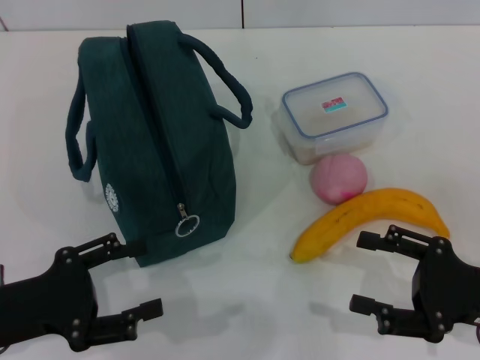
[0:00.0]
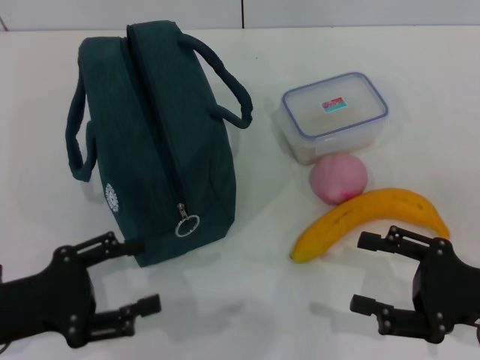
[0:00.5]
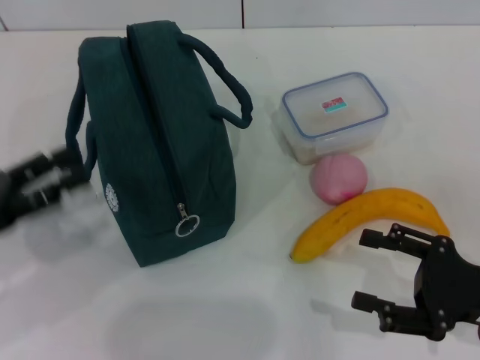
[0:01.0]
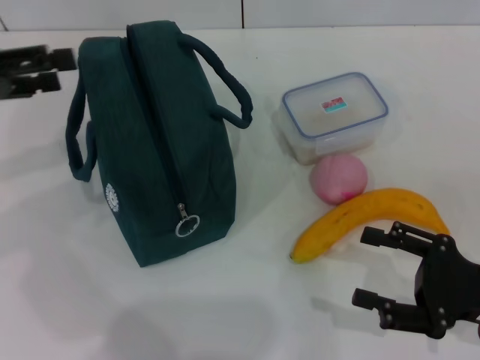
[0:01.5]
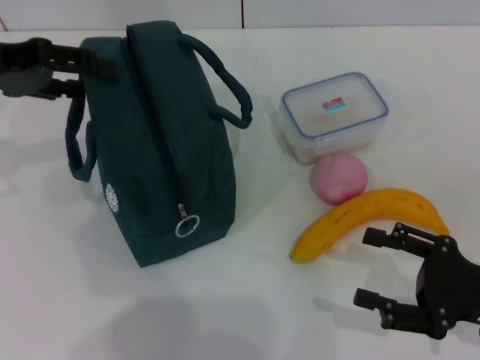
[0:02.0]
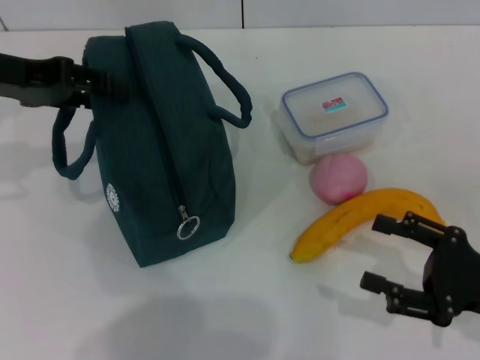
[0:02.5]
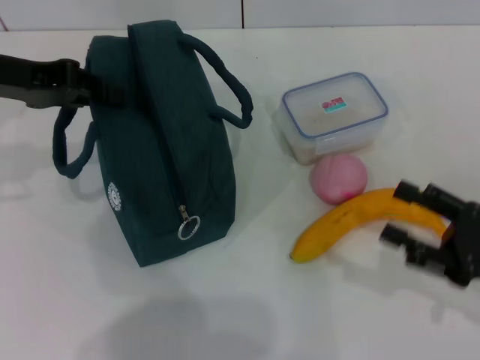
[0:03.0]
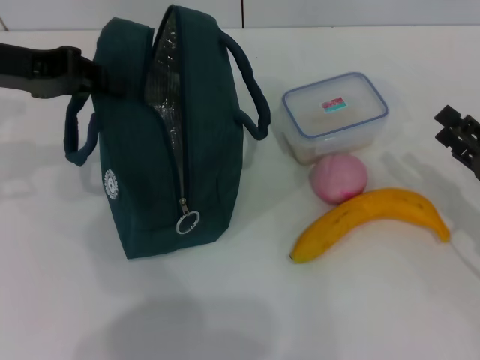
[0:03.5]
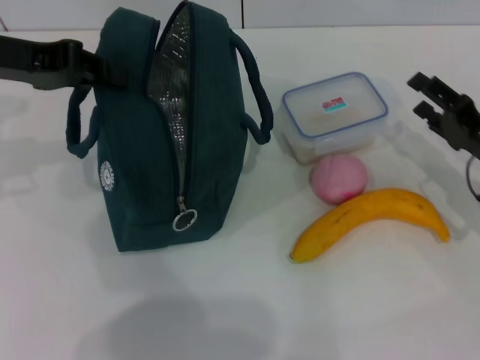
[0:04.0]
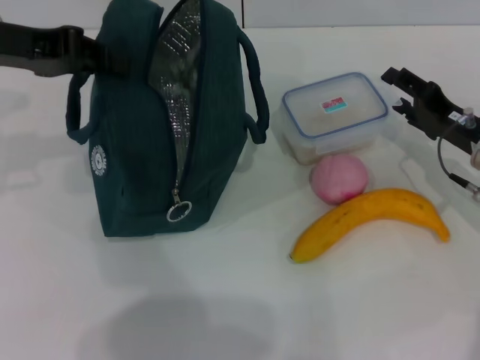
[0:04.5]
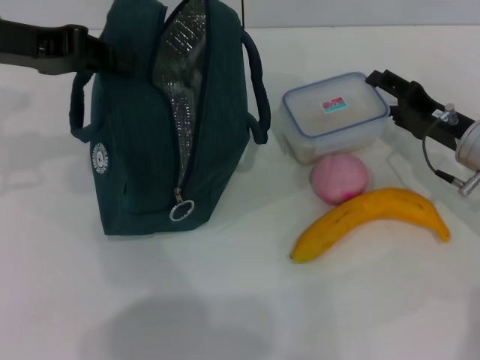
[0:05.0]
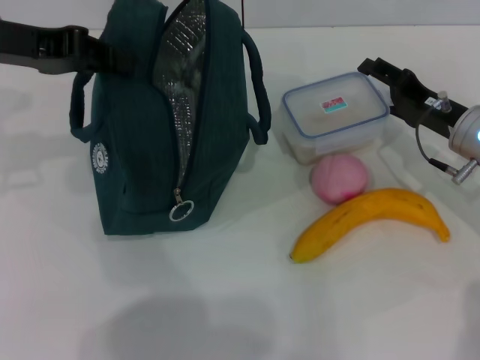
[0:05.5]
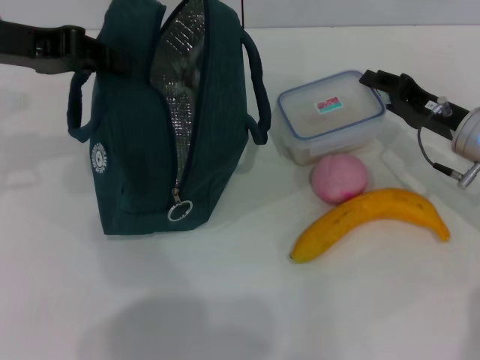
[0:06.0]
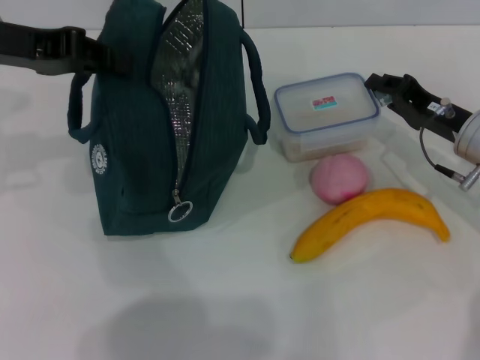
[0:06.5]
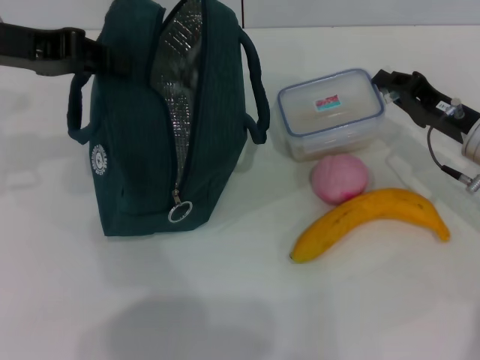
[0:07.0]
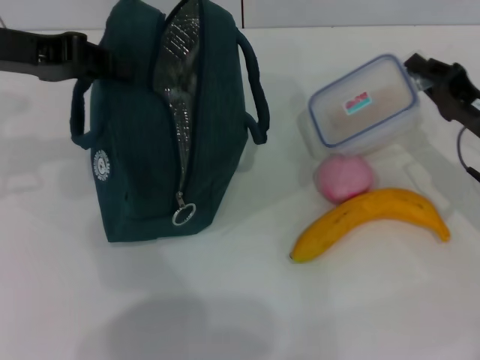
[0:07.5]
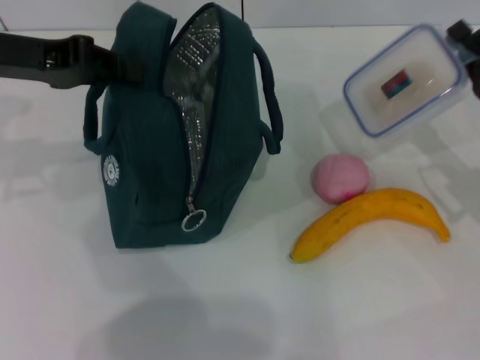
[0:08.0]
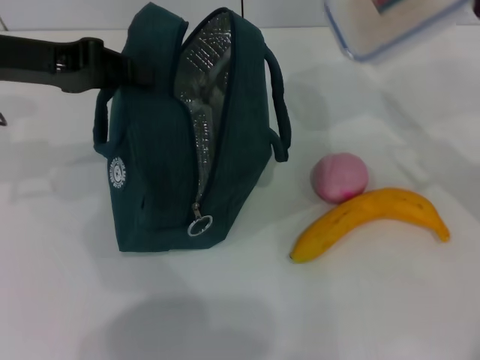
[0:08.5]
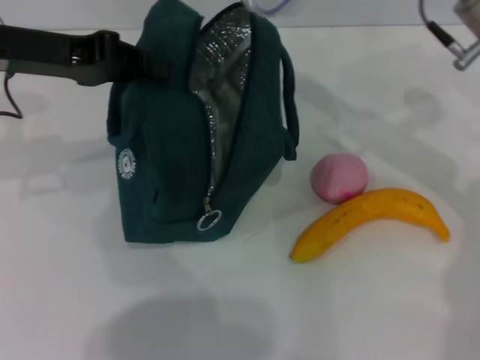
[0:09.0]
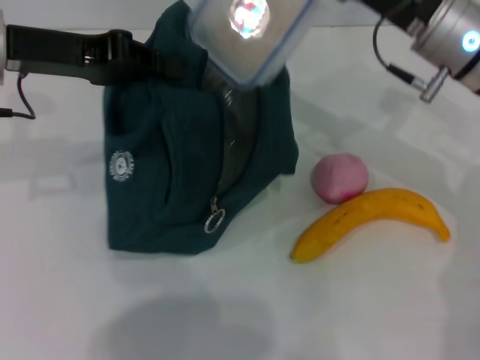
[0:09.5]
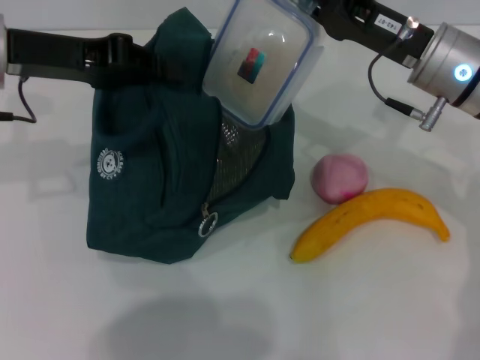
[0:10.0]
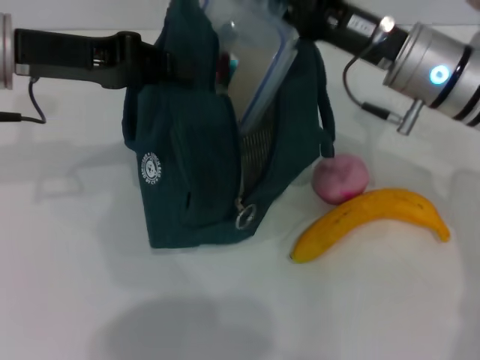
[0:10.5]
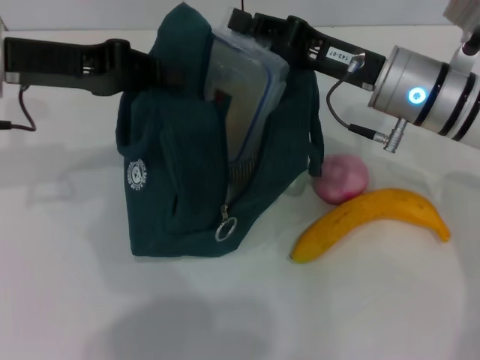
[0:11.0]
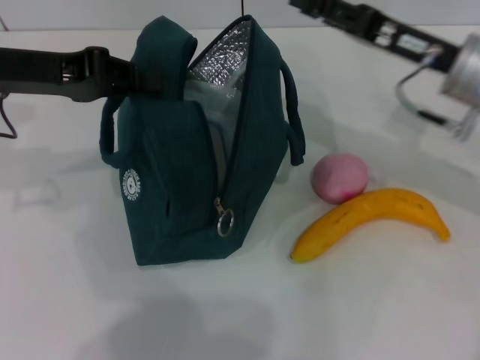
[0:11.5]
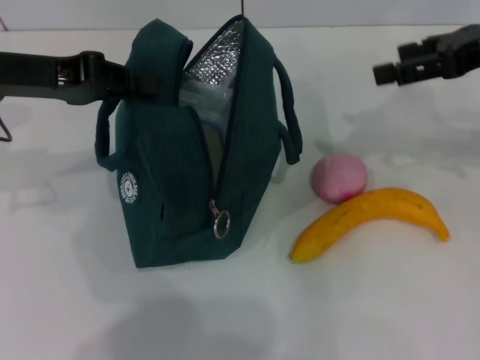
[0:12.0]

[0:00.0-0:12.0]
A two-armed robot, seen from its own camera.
Step, 0:00.0 to 0:03.0: Hold the lunch bag with your left hand.
Step, 0:03.5 to 0:06.5: Pick up the lunch box with your right hand.
Step, 0:07.0 to 0:11.0: Place the lunch box into the lunch bag with your right hand.
0:00.0 to 0:02.0: The left gripper travels forward and upward by some 25 cm.
0:02.0 to 0:04.0: The right gripper heads forward, covering about 10 cm. The left gripper closes its fingers.
0:04.0 to 0:06.0: The right gripper moves forward, about 5 cm.
0:06.0 to 0:08.0: The right gripper heads backward, covering roughly 5 cm, and closes.
0:08.0 to 0:10.0: The right gripper is displaced to the left, upward and forward by roughly 15 cm.
0:10.0 to 0:12.0: The right gripper heads to the right and upward, covering roughly 15 cm, and opens.

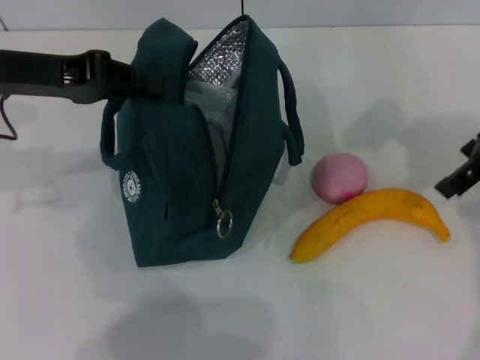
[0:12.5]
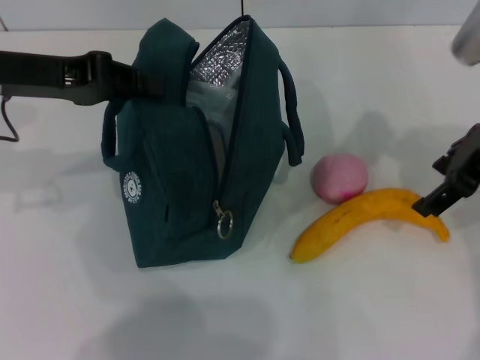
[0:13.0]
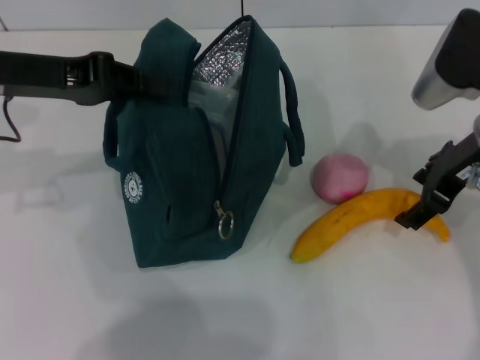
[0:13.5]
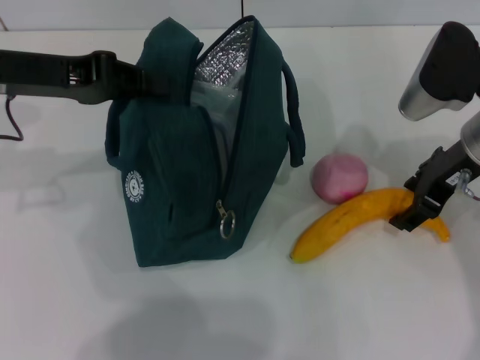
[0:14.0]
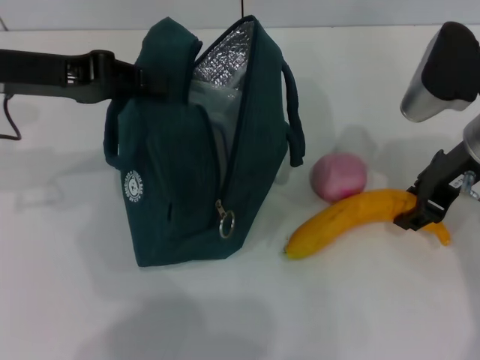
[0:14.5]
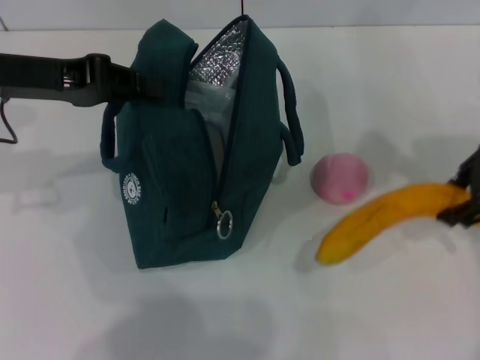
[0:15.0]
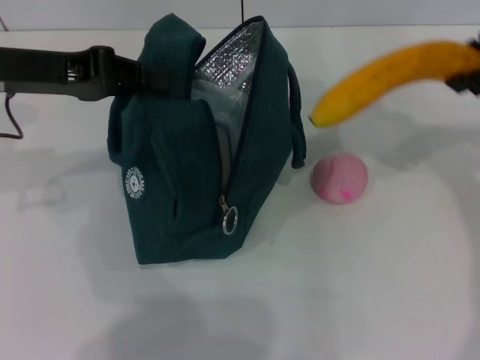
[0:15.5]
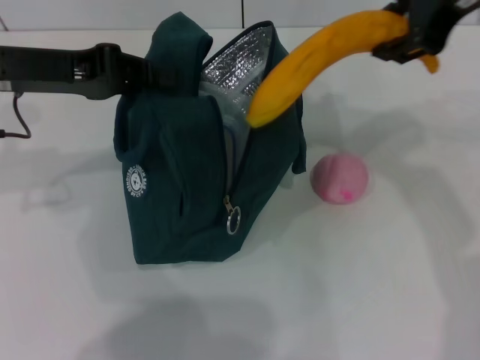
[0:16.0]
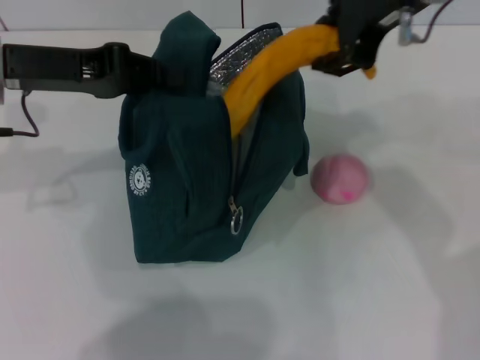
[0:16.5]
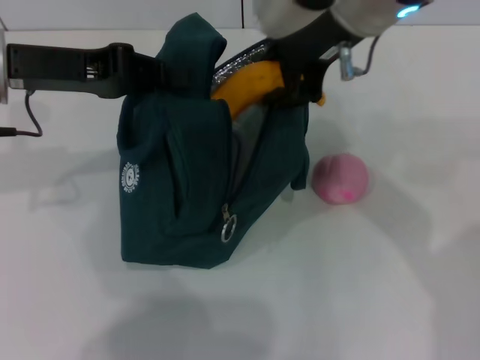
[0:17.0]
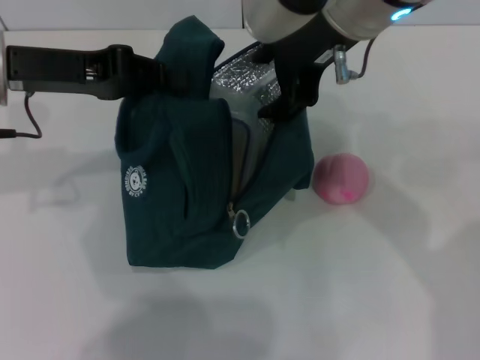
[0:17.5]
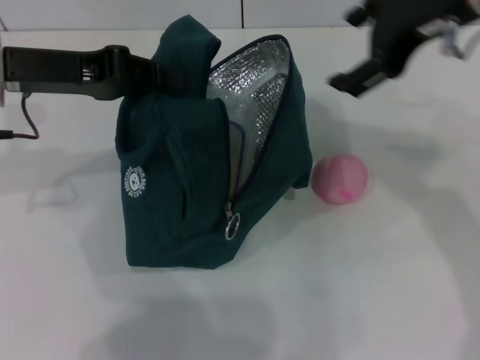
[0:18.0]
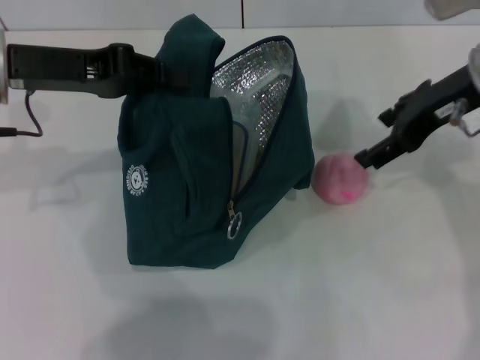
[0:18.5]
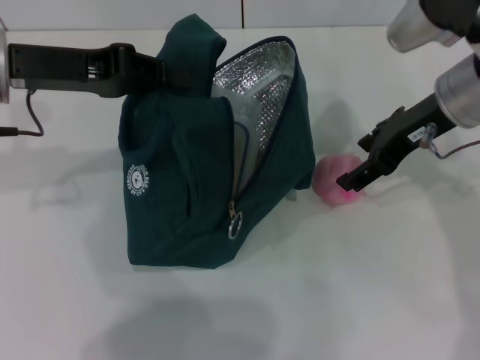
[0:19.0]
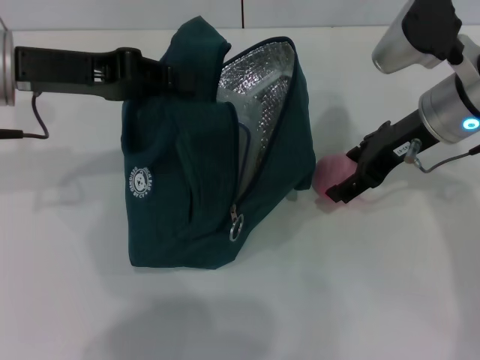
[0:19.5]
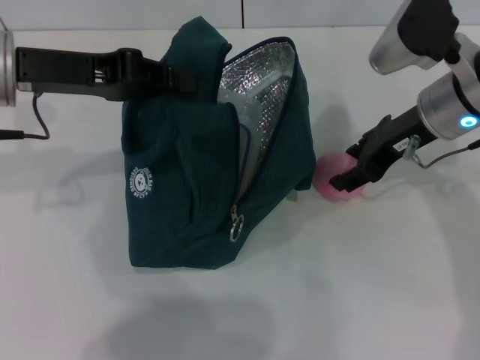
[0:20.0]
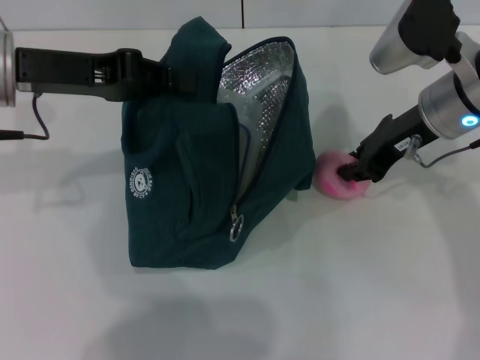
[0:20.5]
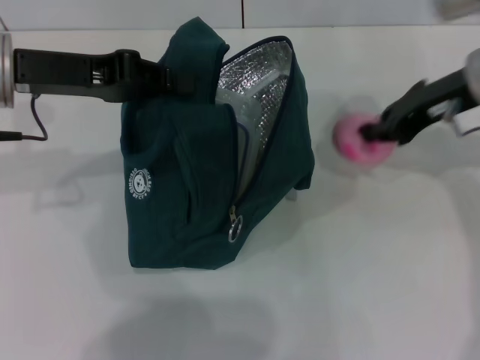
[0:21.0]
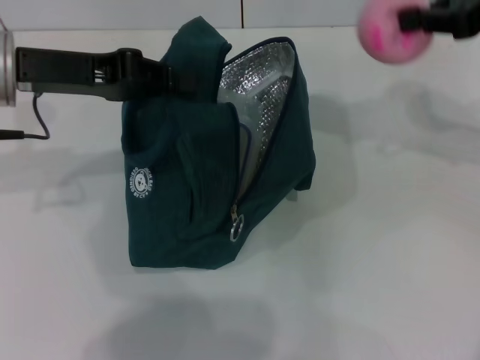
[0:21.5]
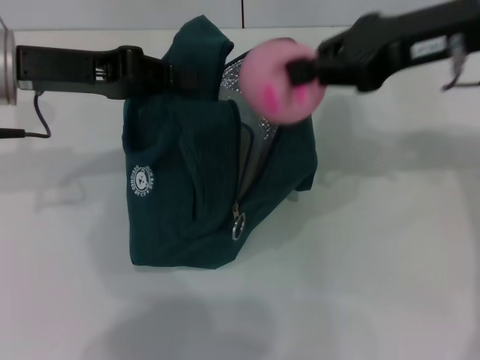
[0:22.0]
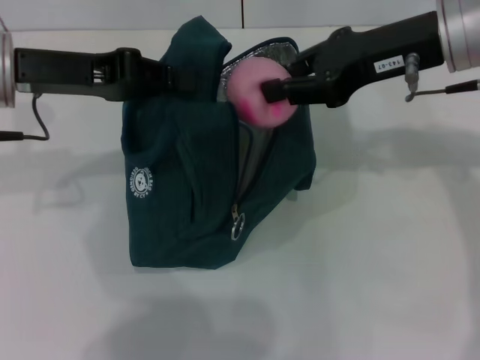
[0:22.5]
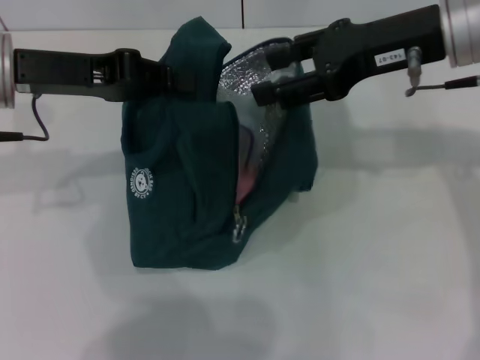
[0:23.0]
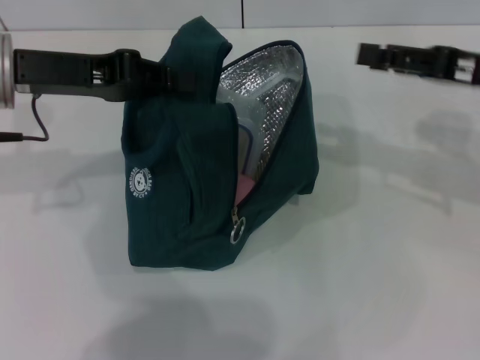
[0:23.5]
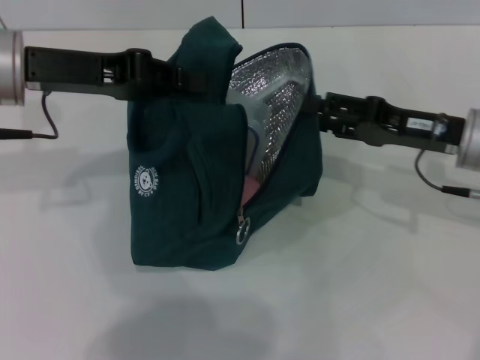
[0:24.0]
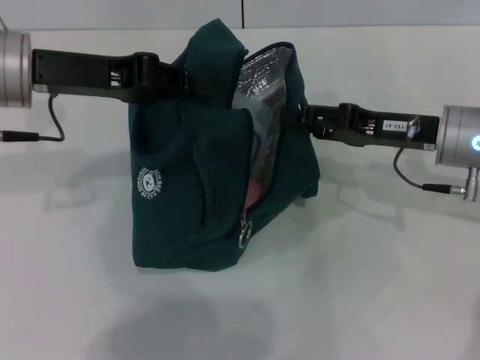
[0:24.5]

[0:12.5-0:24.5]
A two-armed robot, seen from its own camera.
Step, 0:12.5 to 0:14.0: Take the banana with your right hand.
Step, 0:14.5 to 0:17.0: Put the banana into the lunch bag with your right hand.
Step, 0:17.5 to 0:20.5: Grab the peach with your right hand.
0:12.5 to 0:14.5: The right gripper heads downward, covering about 10 cm, and closes up.
0:14.5 to 0:16.5: The right gripper shifts roughly 15 cm upward and to the left.
0:16.5 to 0:18.5: The right gripper heads downward and to the right, covering about 10 cm, and opens up.
0:18.5 to 0:20.5: The right gripper moves downward, approximately 5 cm, and closes its fingers.
0:20.5 to 0:22.5: The right gripper is displaced upward by roughly 10 cm.
0:22.5 to 0:24.5: The right gripper is displaced downward by about 15 cm, and opens up.

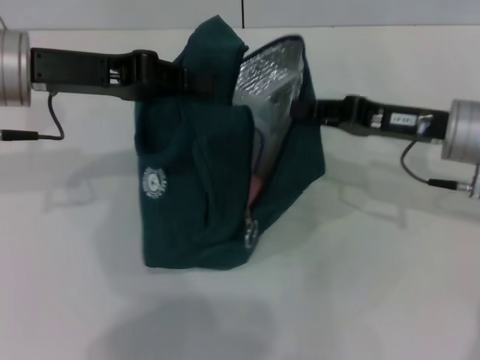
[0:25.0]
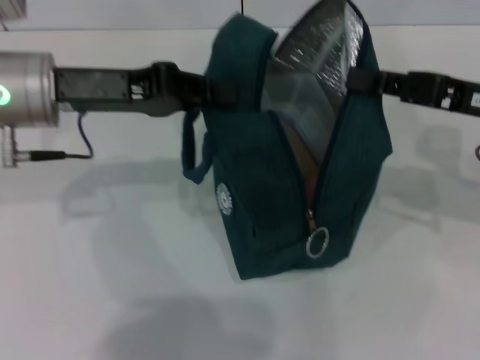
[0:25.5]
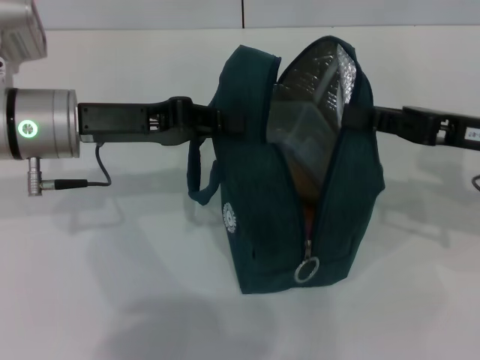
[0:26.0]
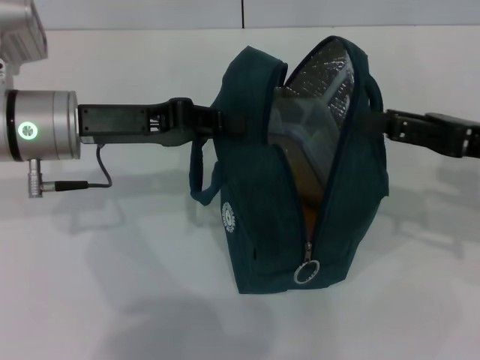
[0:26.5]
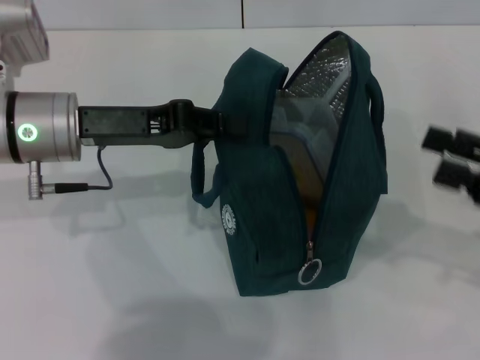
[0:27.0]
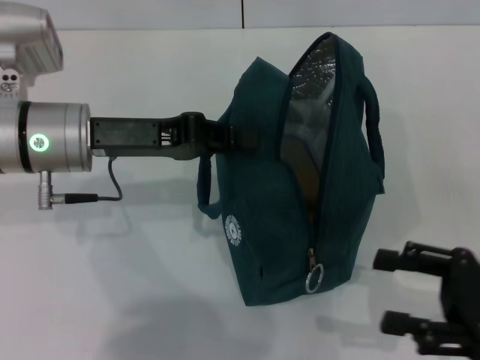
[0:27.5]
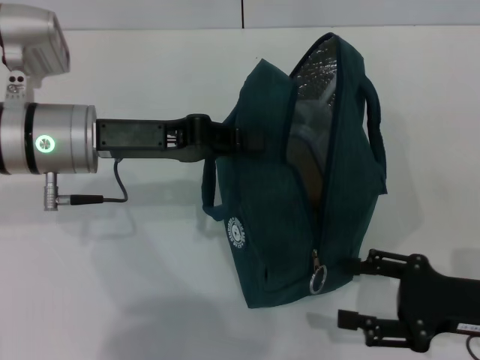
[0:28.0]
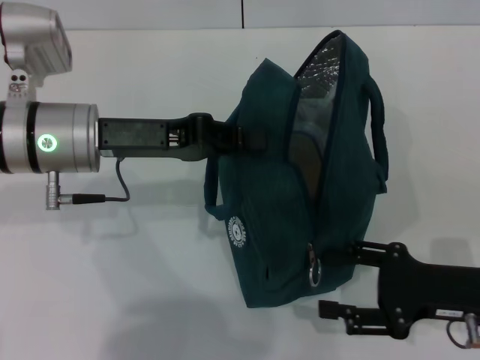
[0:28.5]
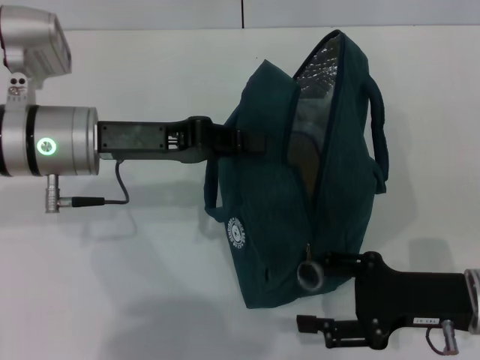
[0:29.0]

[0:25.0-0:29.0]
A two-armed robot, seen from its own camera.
0:25.0 to 0:27.0: The right gripper goes about 15 cm to the right and backward, and opens up. Meanwhile the left gripper shifts roughly 5 cm downward.
0:27.0 to 0:29.0: The right gripper goes some 15 cm downward and to the left.
